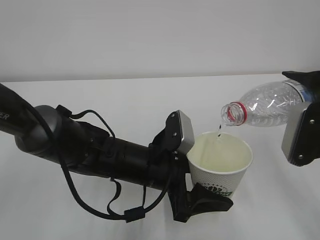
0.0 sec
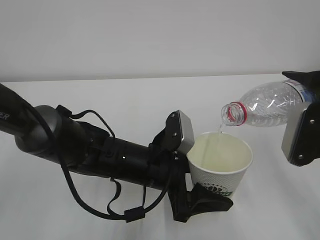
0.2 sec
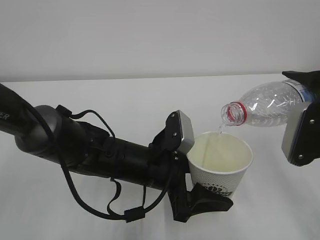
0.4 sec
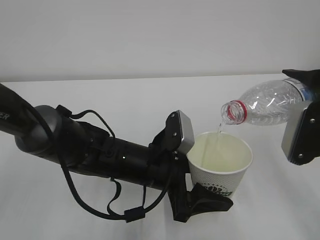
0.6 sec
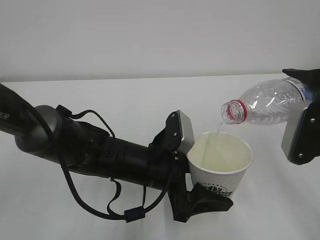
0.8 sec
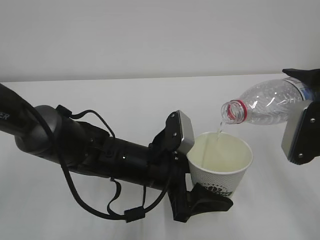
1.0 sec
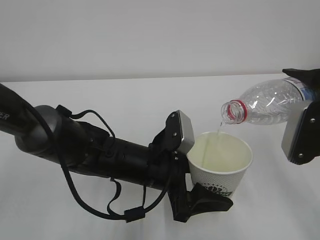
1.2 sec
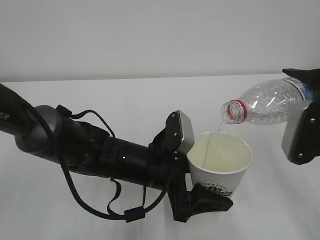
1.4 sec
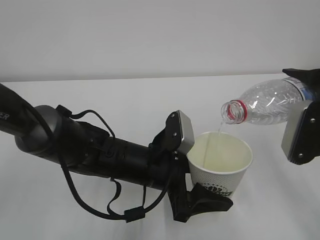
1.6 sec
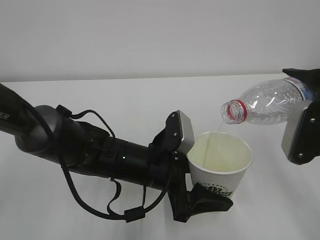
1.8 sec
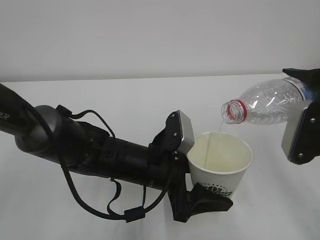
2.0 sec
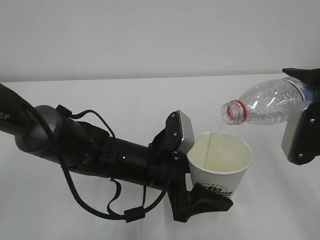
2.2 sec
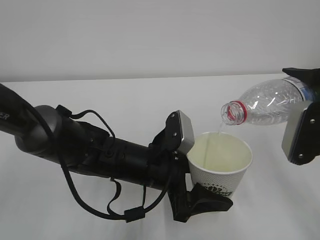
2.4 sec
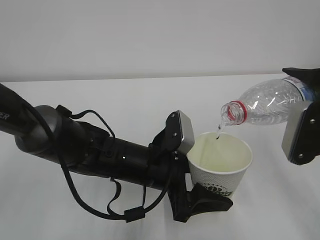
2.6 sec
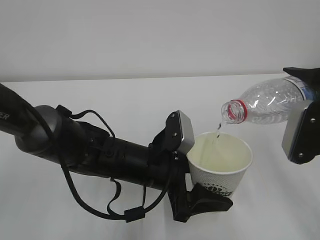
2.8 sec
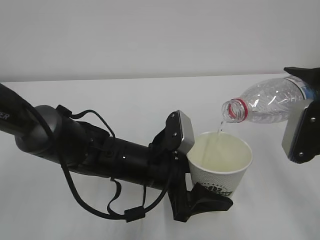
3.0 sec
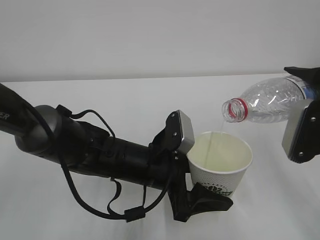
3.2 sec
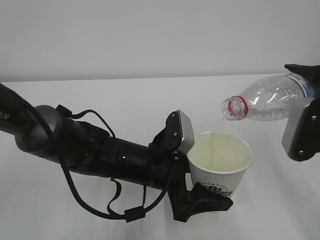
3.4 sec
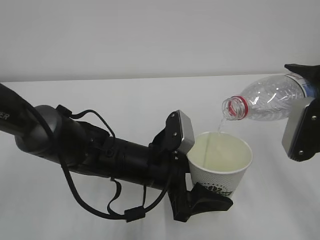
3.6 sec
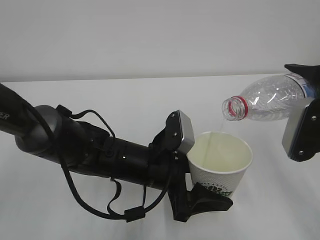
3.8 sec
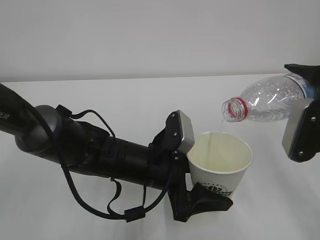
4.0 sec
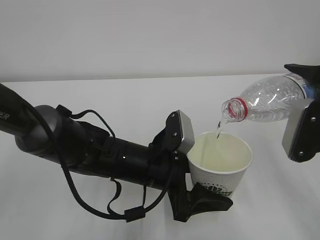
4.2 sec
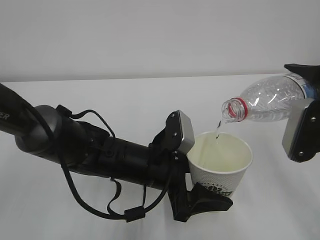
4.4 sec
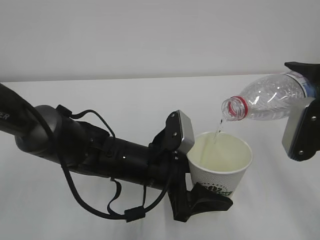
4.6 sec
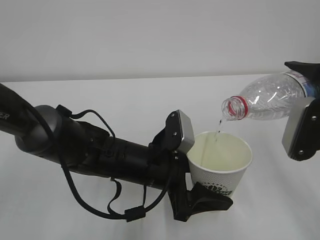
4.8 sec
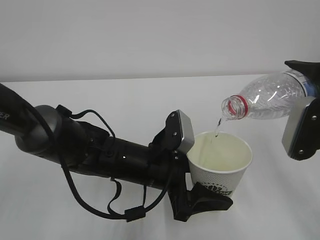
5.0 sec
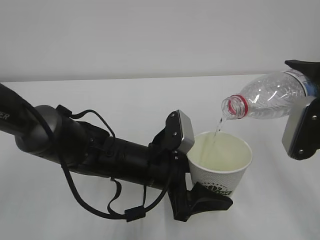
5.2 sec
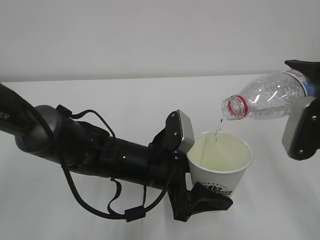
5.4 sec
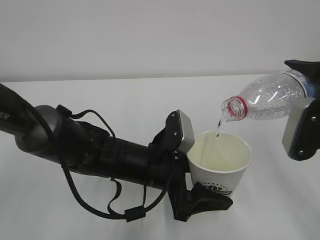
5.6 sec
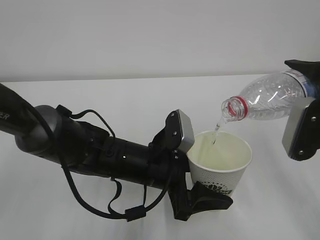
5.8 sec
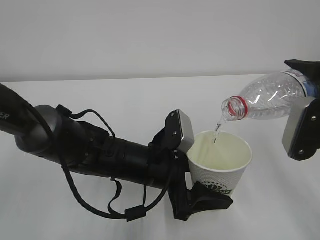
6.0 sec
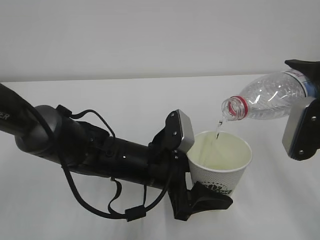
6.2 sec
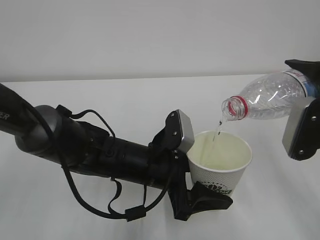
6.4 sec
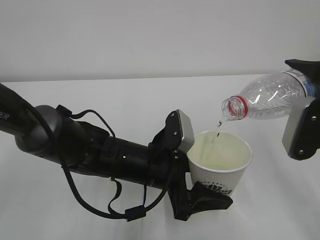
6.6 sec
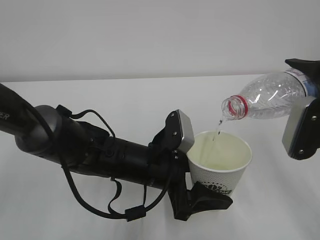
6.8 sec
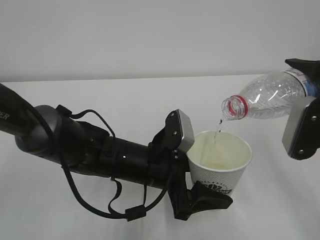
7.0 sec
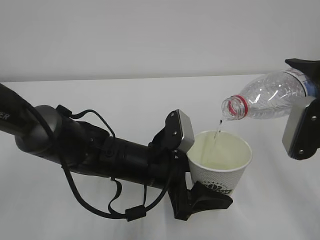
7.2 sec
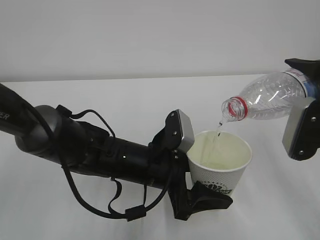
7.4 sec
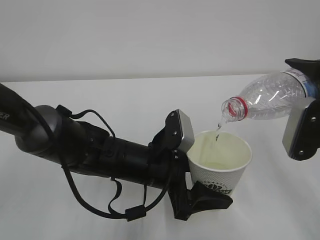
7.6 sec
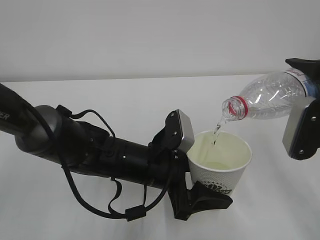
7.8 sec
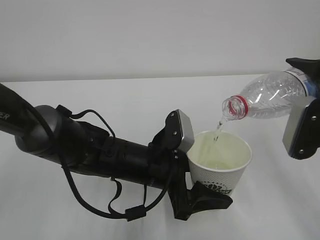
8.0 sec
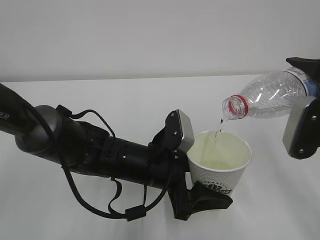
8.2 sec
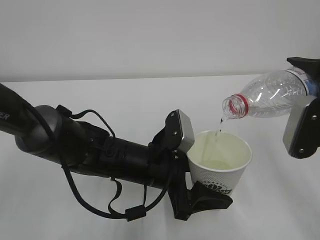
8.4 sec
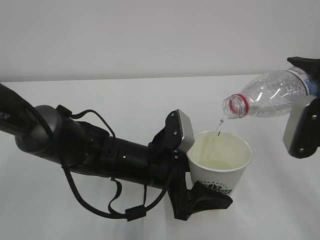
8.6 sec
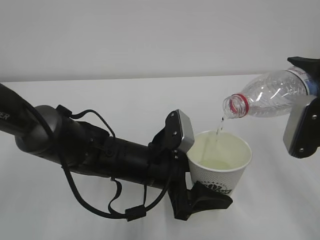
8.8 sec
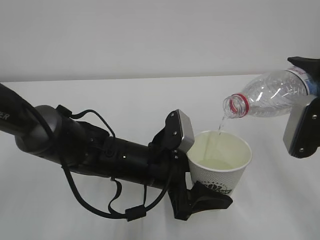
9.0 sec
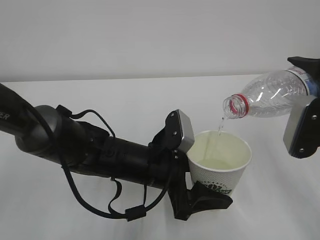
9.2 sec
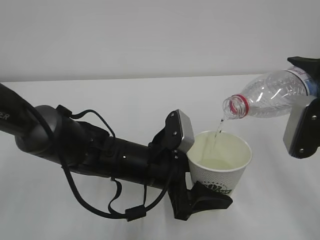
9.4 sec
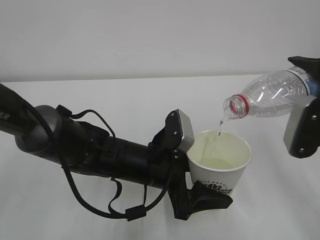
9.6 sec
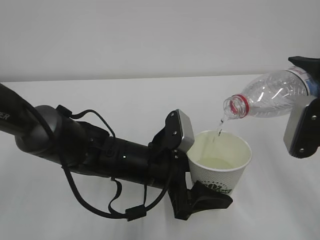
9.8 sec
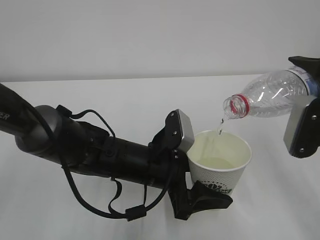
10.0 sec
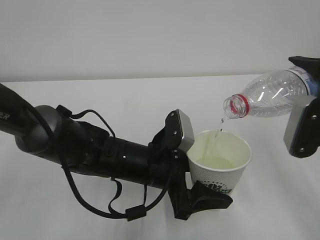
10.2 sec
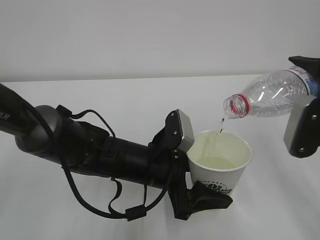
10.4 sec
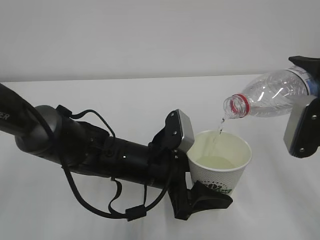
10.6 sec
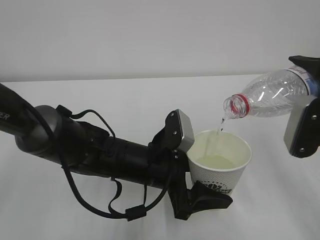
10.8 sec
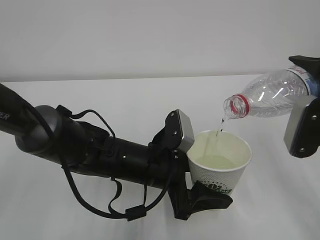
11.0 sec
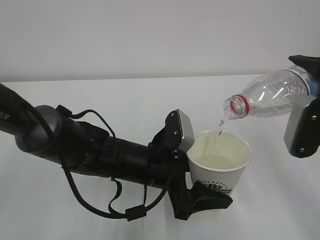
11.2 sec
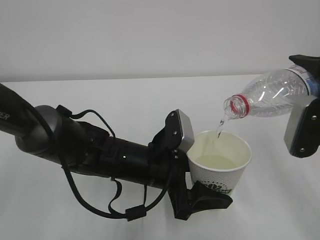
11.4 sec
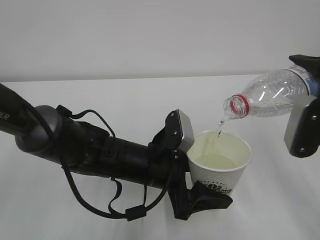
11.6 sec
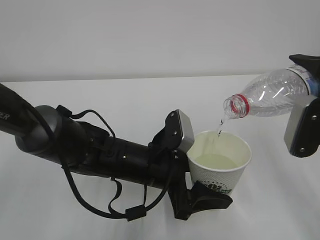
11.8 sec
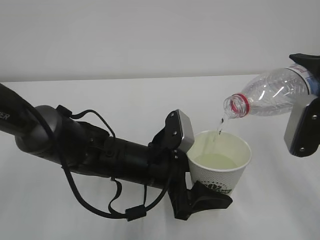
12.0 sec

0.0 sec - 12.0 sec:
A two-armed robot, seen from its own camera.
0.0 sec - 4.4 sec: The two grippers keep their place.
4.4 sec - 10.4 sec: Both grippers stay about where they are.
10.4 sec - 12.0 sec: Neither gripper changes place.

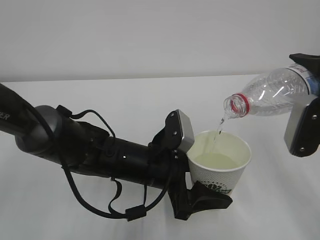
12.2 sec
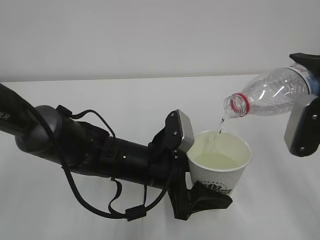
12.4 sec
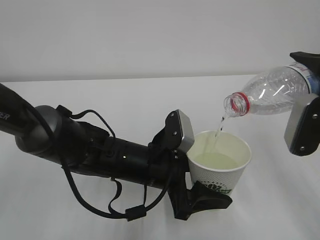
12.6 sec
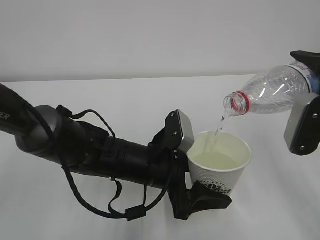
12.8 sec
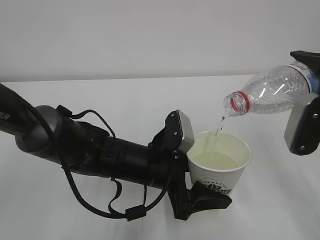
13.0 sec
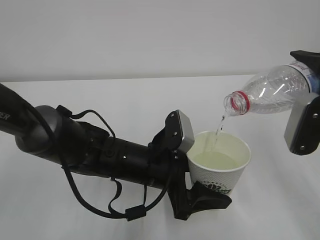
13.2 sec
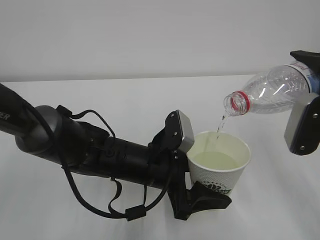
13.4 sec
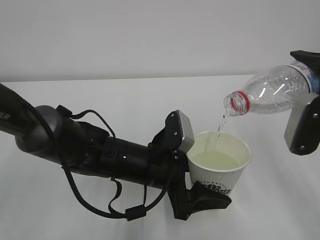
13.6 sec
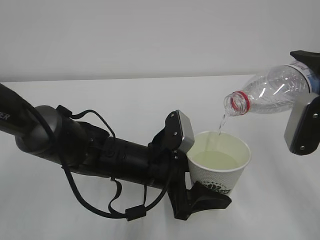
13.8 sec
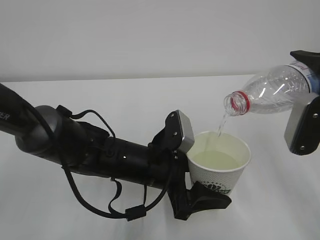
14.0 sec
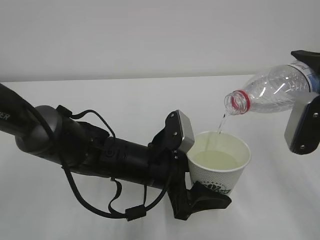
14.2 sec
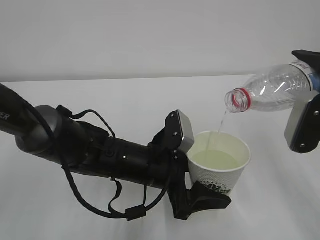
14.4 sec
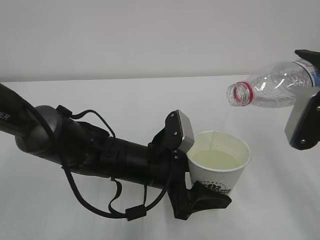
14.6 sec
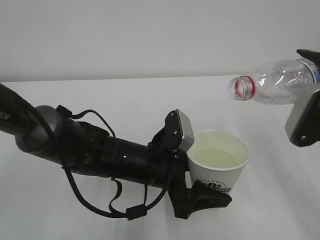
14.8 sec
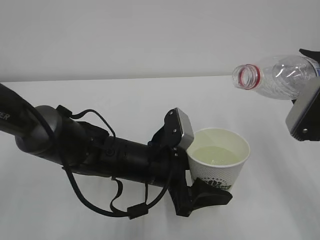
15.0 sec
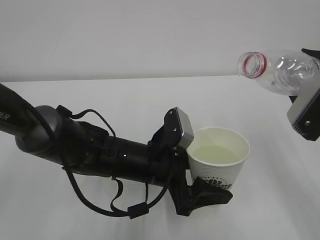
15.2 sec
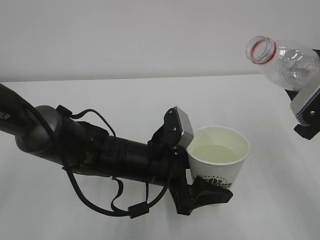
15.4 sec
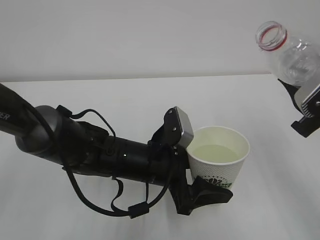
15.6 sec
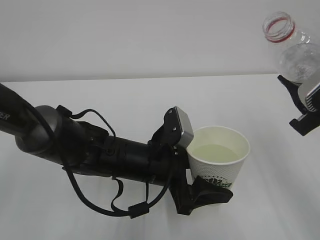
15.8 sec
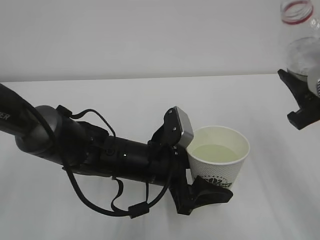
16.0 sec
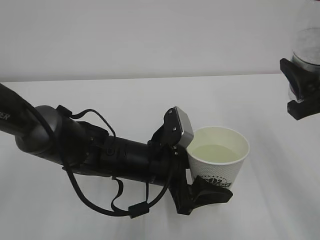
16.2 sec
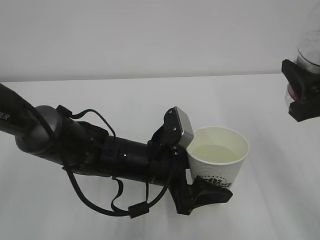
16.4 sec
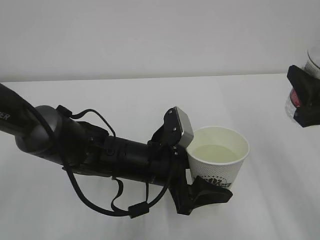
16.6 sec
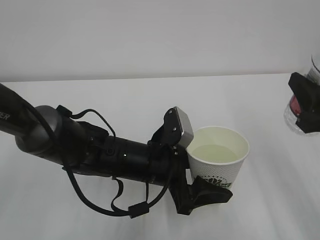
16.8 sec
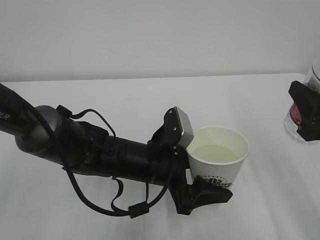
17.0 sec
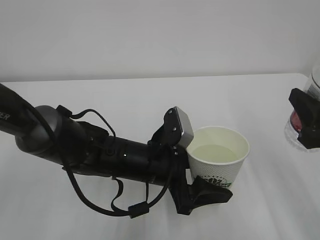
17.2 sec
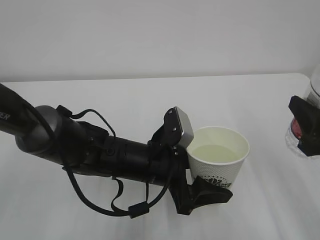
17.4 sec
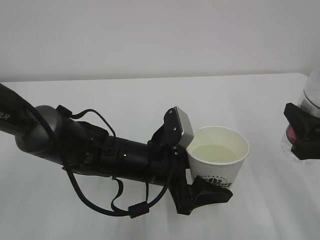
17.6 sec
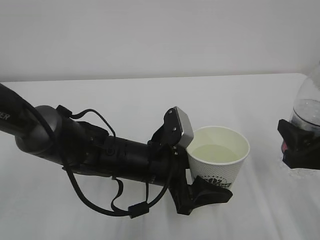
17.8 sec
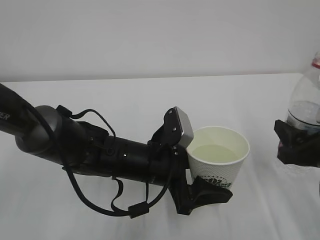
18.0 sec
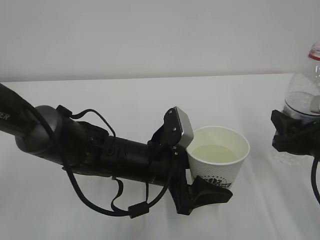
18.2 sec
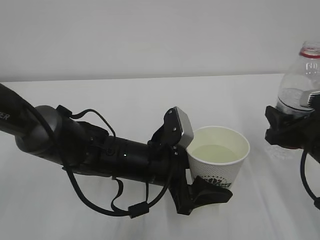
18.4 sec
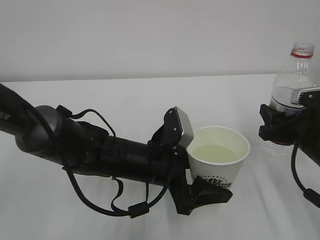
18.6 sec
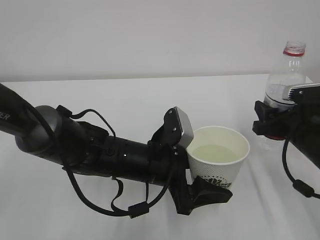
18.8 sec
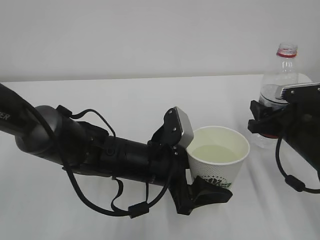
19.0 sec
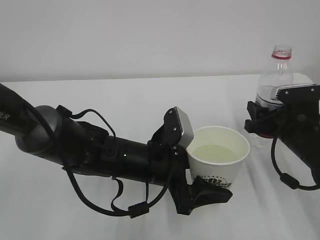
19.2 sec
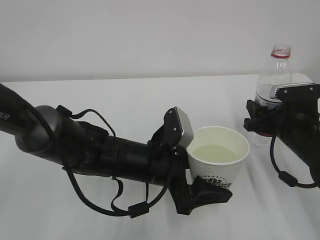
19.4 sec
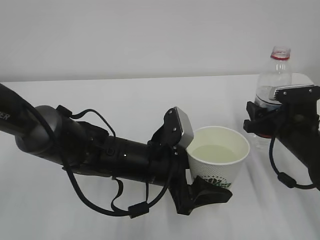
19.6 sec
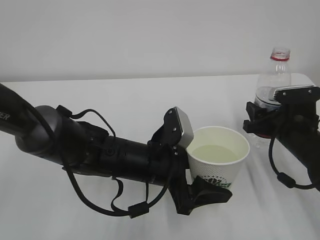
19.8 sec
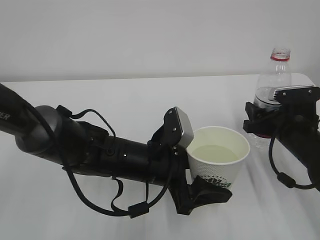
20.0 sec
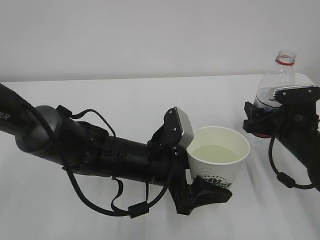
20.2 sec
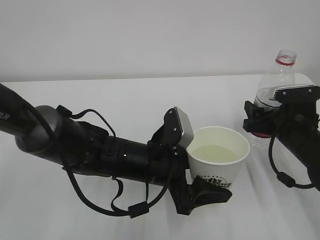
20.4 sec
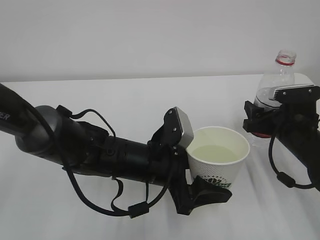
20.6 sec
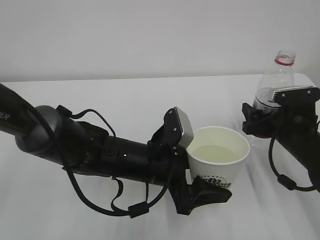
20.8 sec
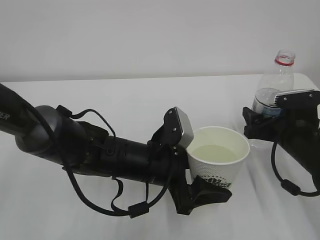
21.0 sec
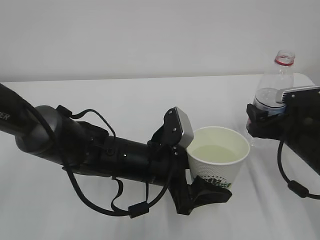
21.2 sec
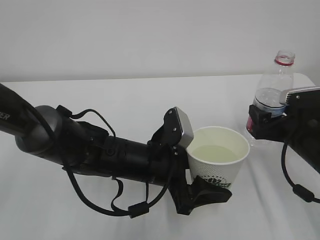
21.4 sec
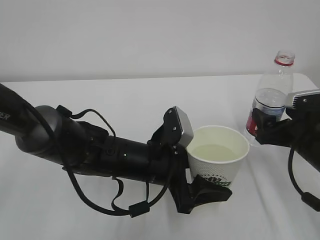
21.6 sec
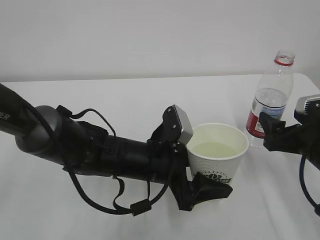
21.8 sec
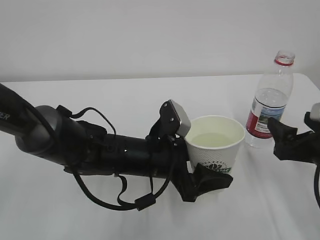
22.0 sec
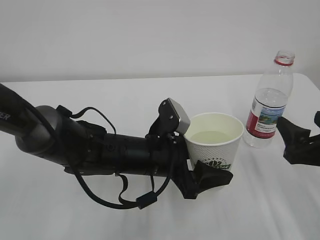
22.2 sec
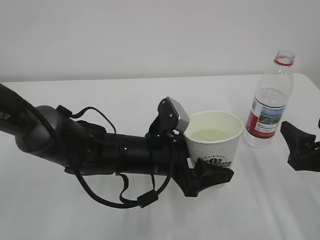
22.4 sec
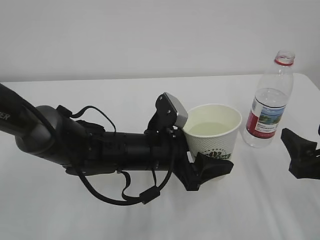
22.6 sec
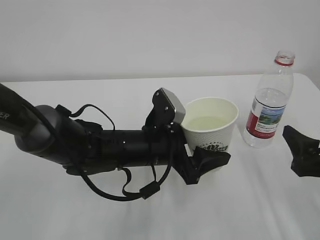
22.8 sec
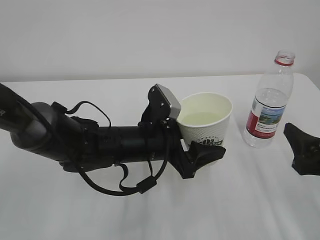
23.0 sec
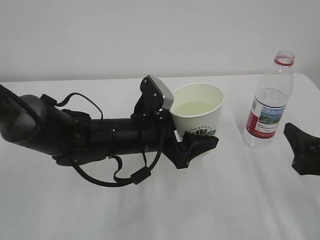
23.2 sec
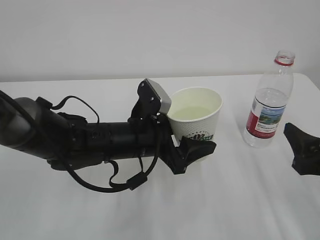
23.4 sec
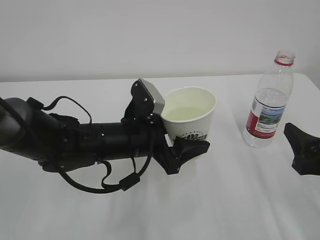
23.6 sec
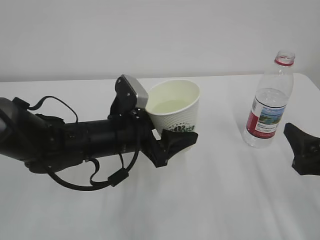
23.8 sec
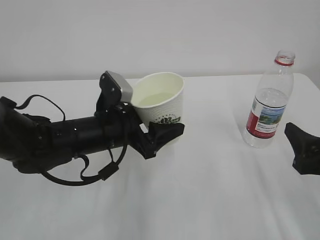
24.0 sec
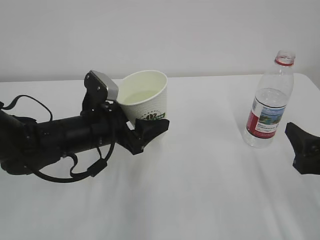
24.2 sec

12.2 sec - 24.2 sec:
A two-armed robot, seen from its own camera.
12.2 sec - 13.8 sec: The two grippers keep their place.
16.6 sec - 18.2 sec: The right gripper shifts approximately 10 cm downward.
18.2 sec - 19.8 sec: The right gripper travels forward by some 10 cm.
19.8 sec - 21.2 sec: The right gripper opens.
21.2 sec - 22.6 sec: The right gripper goes approximately 10 cm backward.
22.6 sec - 24.2 sec: The left gripper travels to the left by roughly 10 cm.
